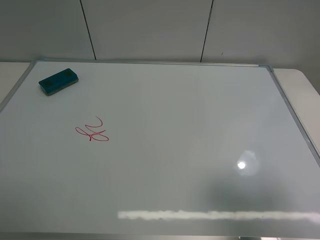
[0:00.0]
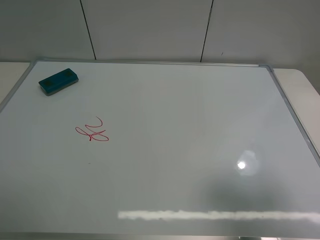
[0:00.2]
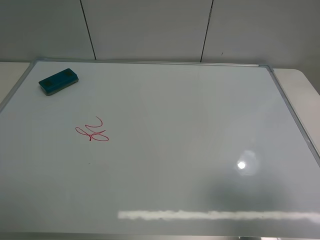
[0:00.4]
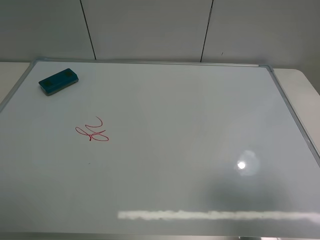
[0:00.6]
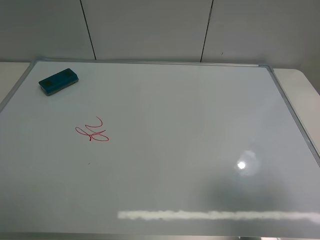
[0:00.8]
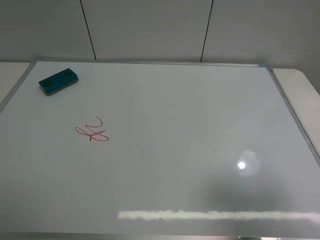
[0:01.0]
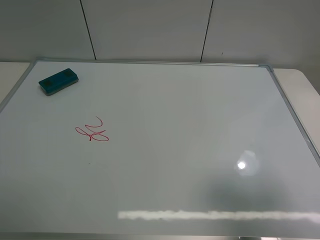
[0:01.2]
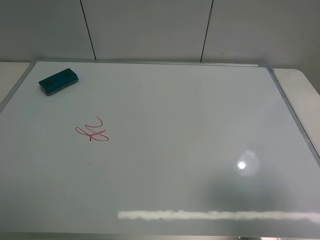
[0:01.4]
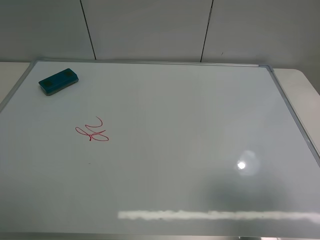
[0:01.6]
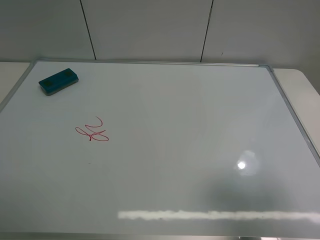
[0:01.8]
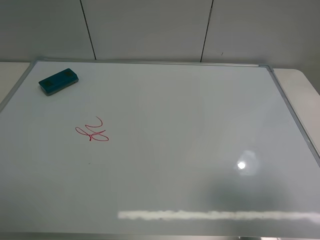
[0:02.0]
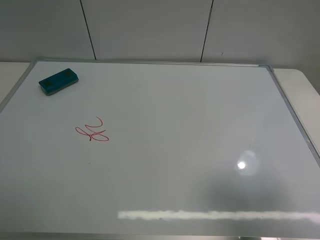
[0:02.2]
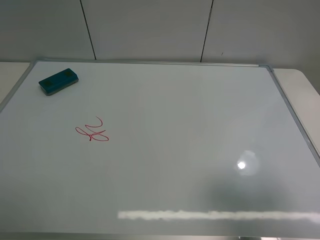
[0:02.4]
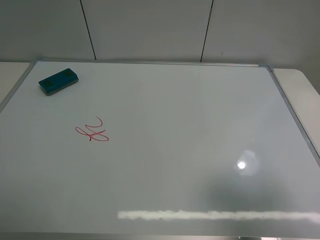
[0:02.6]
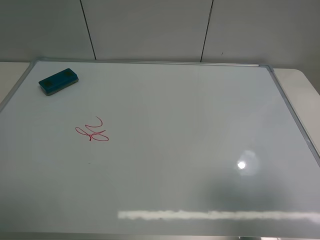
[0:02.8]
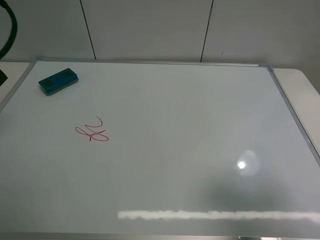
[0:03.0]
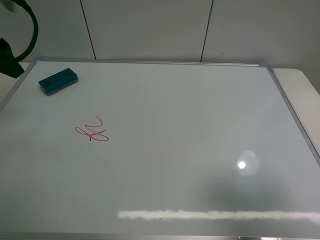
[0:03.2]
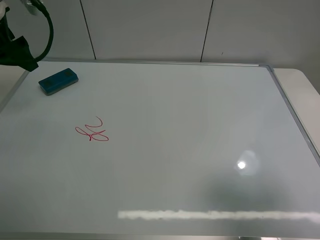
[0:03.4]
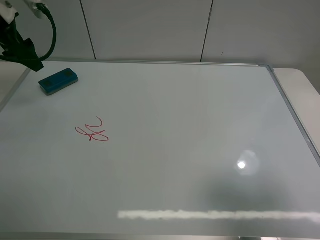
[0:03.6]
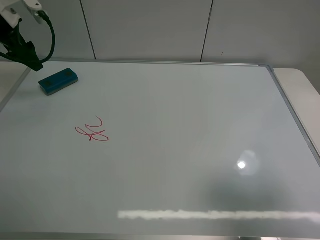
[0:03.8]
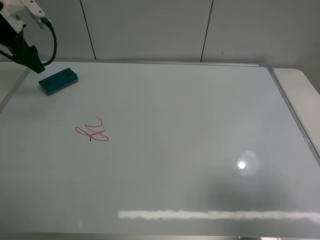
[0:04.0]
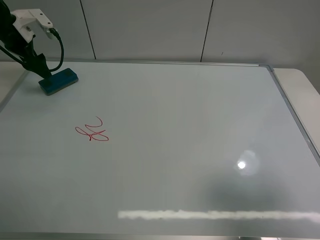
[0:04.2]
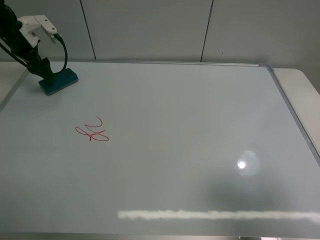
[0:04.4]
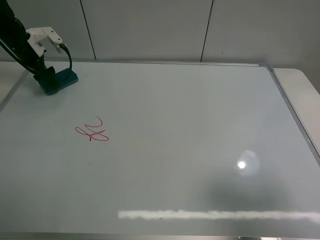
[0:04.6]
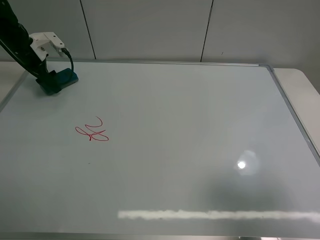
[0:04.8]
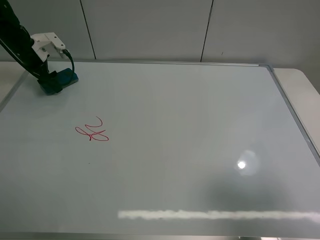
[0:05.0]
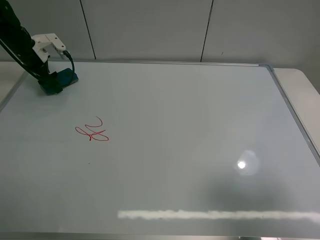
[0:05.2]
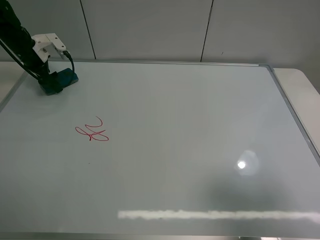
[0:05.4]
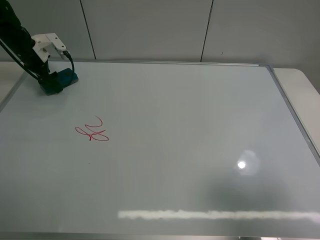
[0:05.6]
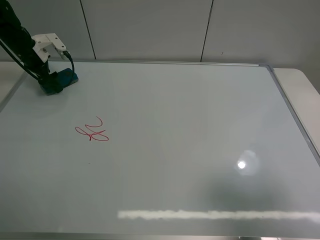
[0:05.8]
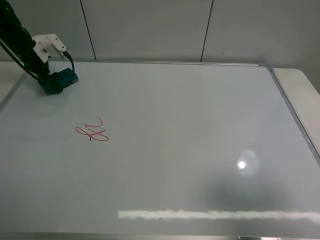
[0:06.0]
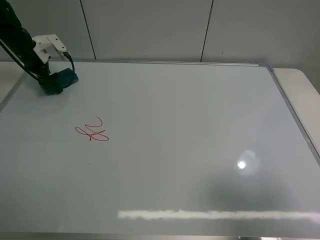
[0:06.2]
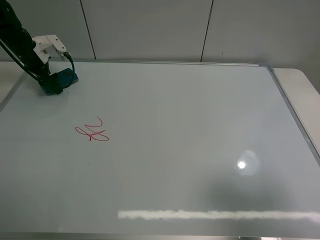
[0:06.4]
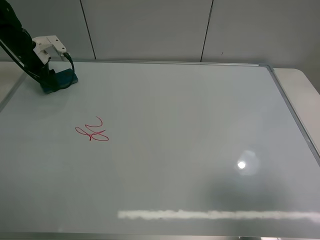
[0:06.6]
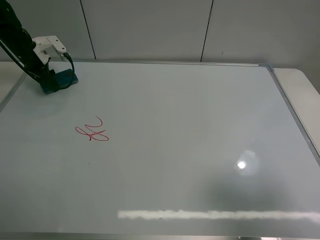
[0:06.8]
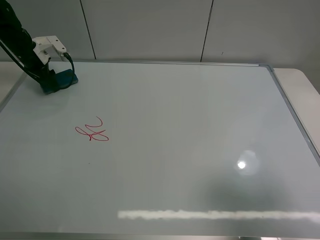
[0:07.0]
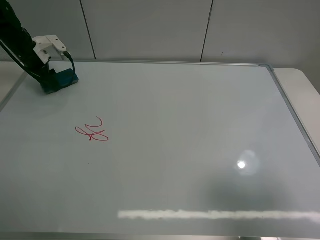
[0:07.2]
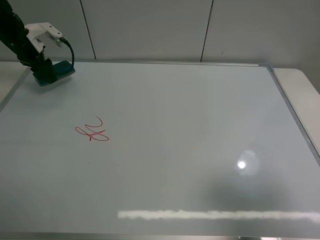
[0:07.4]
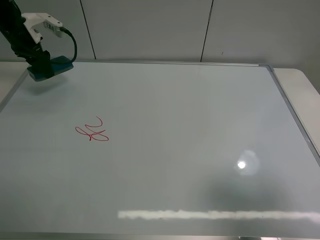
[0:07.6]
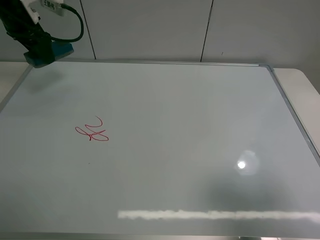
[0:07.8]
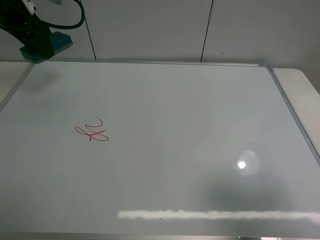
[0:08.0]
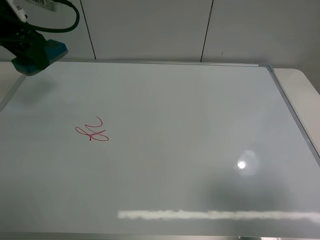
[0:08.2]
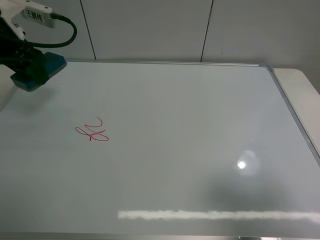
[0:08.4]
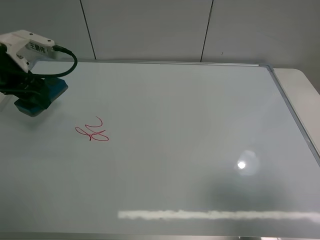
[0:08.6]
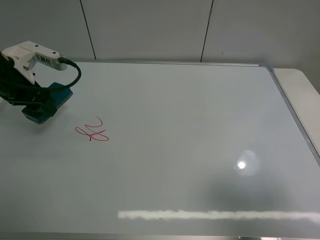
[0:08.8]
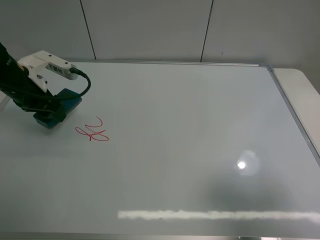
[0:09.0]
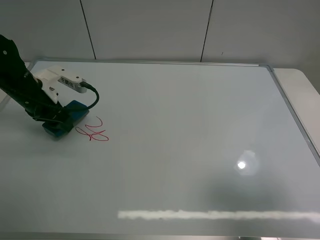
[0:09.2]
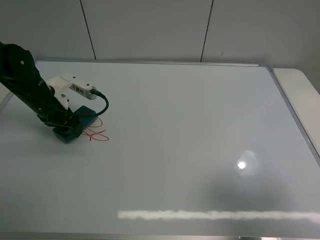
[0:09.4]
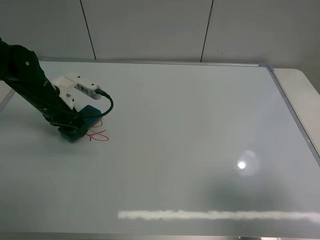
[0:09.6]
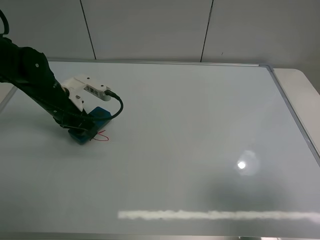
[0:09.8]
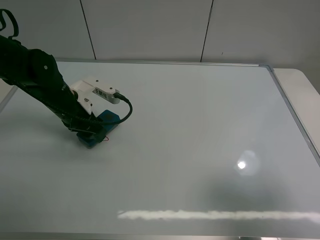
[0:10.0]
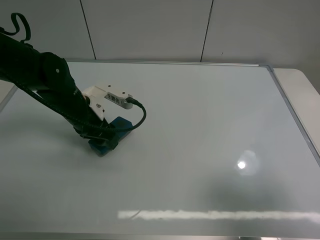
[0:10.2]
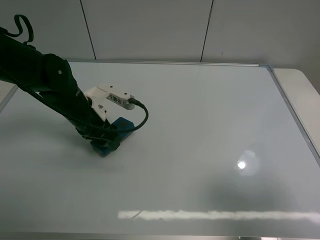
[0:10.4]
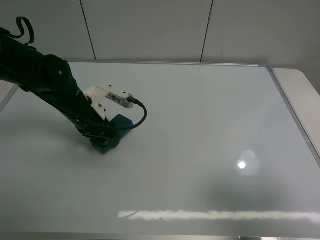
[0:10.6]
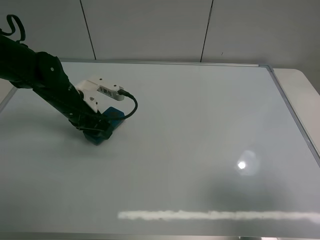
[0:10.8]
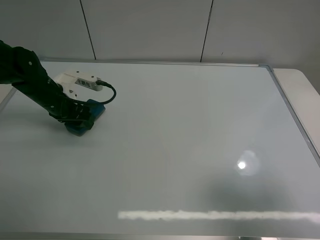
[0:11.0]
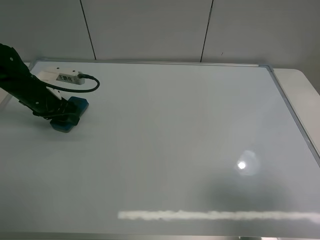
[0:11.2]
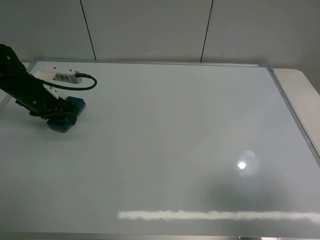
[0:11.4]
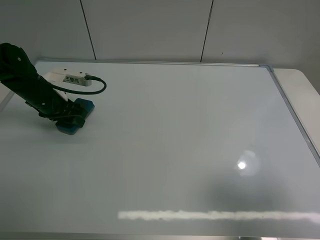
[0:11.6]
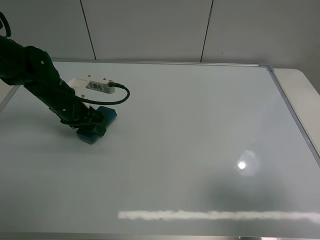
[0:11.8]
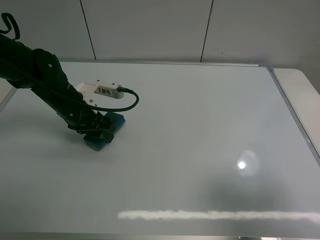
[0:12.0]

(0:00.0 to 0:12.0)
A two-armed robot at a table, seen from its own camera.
Task of the whole recording: use the left claw to pick up the whiteboard eraser, wipe the notes on the whiteboard clean, and then put them back in place.
Step, 0:00.0 - 0:06.6: Grasp the eraser with the left gripper.
Step, 0:06.8 - 0:12.0: Grasp the eraser and wipe the blackboard with the left gripper.
0:00.0 - 0:01.6: Both grippers stay put.
0:01.6 - 0:03.0: The left gripper is displaced forward by approximately 25 cm.
0:03.0 - 0:04.4: The left gripper moves forward and downward, approximately 25 cm.
0:04.4 - 0:06.0: The left gripper travels downward by roughly 5 cm.
0:06.0 - 0:07.6: The left gripper shifts some 10 cm upward, and closes its fingers.
0:07.6 - 0:09.0: The left gripper is displaced backward and to the right by roughly 15 cm.
0:09.0 - 0:10.4: The left gripper shifts some 10 cm to the right and downward.
0:10.4 - 0:12.0: The left gripper goes to the left and returns, roughly 15 cm each way.

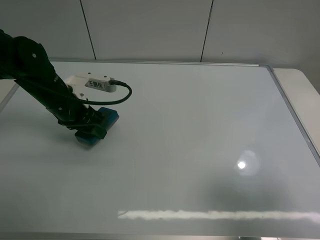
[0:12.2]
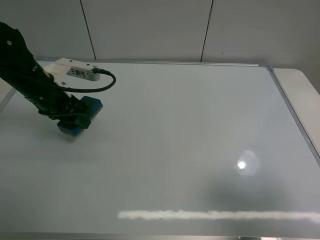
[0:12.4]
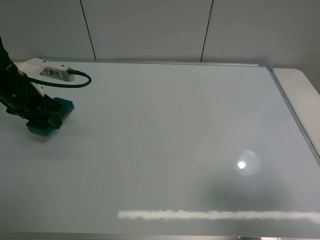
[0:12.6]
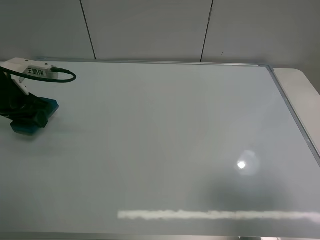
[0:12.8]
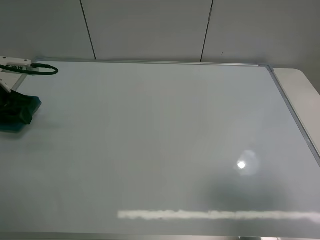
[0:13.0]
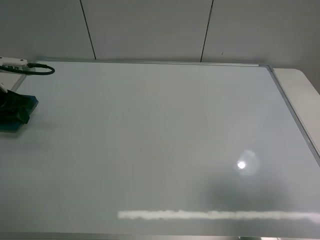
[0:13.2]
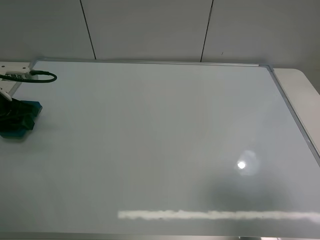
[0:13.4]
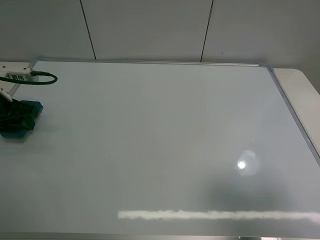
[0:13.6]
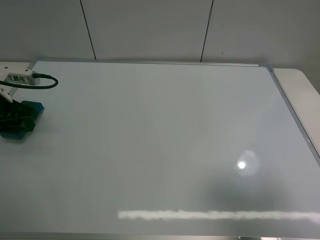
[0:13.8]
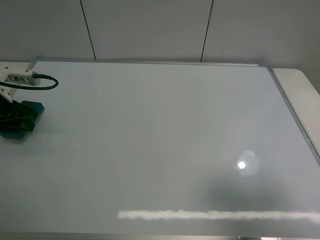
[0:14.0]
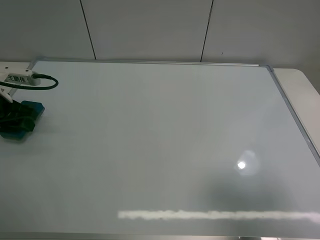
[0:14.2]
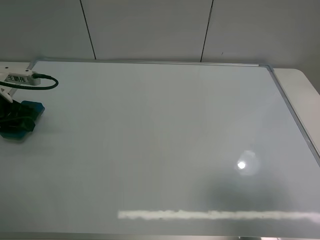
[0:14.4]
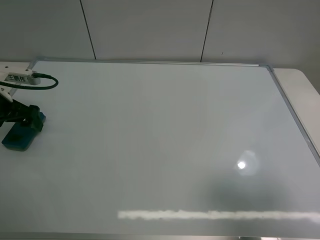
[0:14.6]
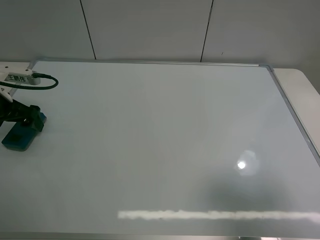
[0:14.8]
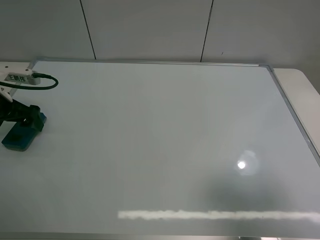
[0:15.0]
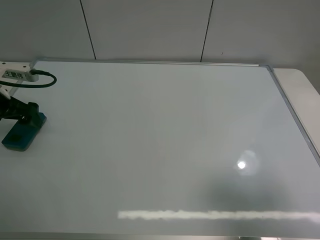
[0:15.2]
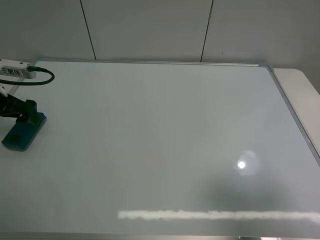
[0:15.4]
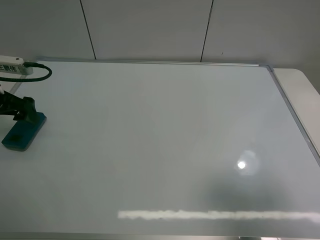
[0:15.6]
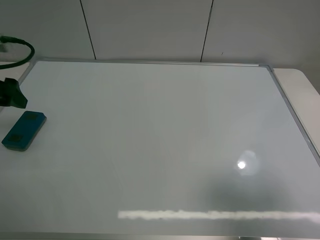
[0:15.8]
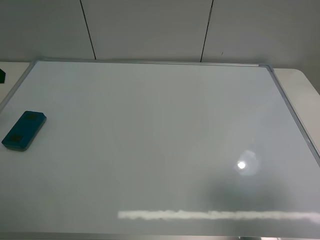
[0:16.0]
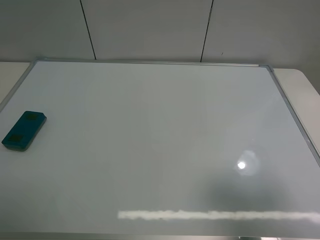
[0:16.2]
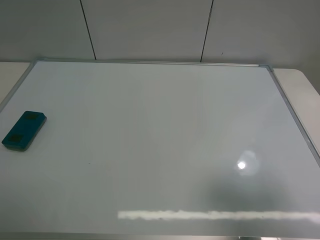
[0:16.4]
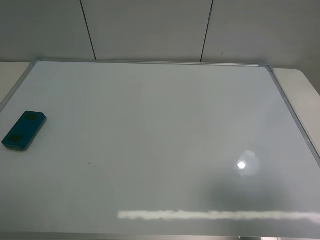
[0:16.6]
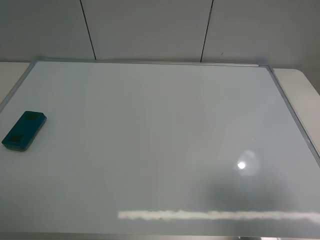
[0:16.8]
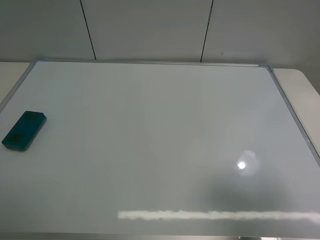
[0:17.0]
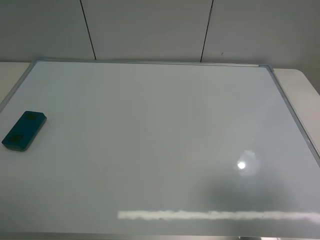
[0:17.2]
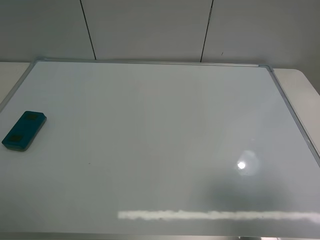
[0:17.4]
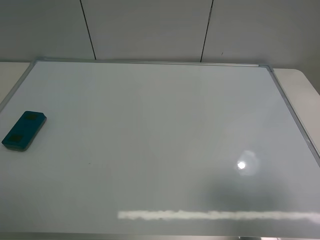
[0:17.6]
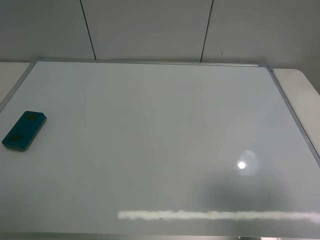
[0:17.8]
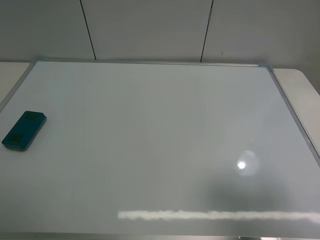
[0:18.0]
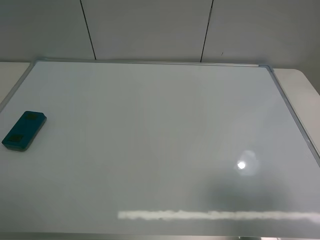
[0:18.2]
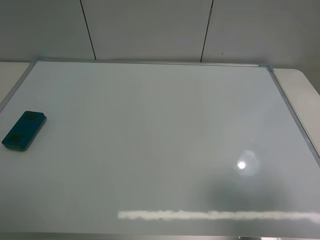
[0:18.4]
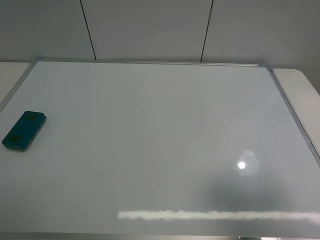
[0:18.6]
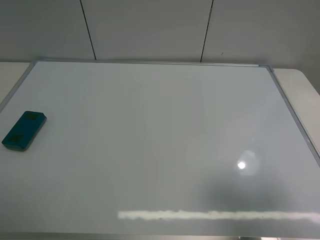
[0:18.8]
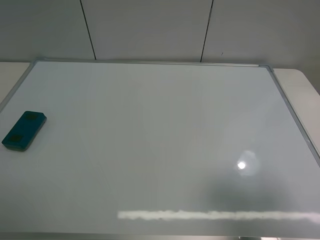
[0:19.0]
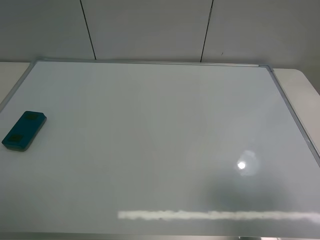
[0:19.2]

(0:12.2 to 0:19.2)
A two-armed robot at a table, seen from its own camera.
Task of the whole recording: use the left claw to pick up the whiteboard eraser, wipe the notes on the whiteboard clean, and then put them back in place.
Step, 0:12.2 - 0:14.6: Place the eraser with the left gripper.
0:12.2 - 0:13.6: The left gripper is displaced to the left by about 15 cm.
0:13.6 - 0:15.0: The left gripper opens its fingers.
0:15.0 - 0:16.4: The left gripper is displaced upward and backward by about 30 cm.
0:17.8 - 0:19.2: Both grippers stay put.

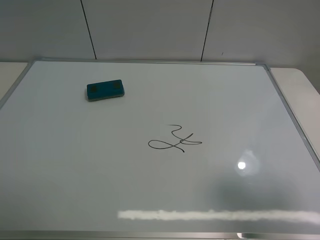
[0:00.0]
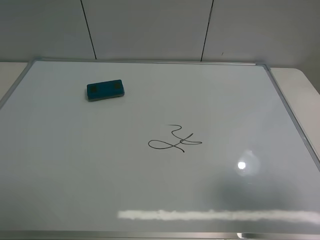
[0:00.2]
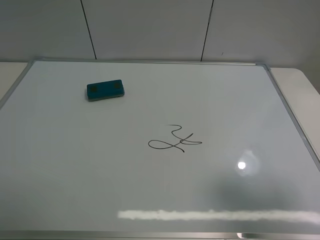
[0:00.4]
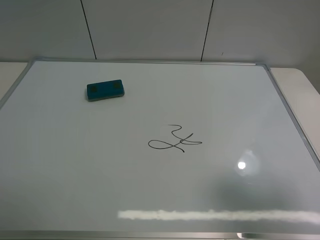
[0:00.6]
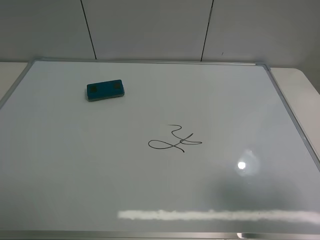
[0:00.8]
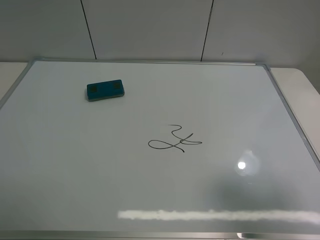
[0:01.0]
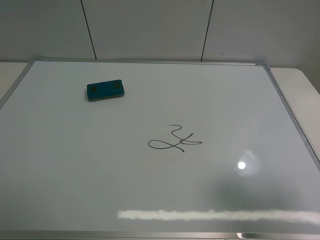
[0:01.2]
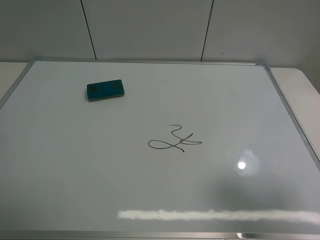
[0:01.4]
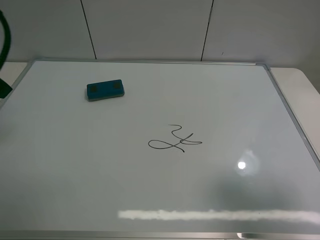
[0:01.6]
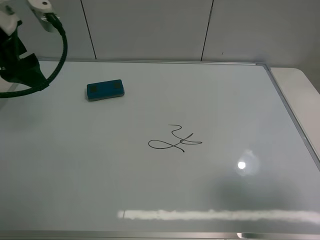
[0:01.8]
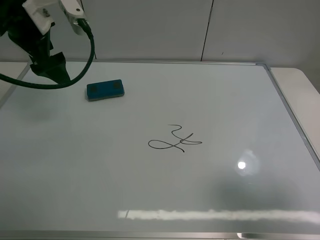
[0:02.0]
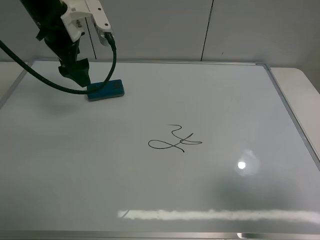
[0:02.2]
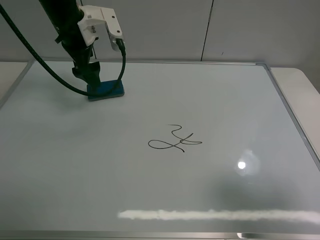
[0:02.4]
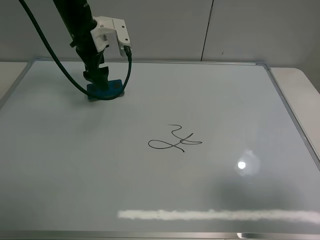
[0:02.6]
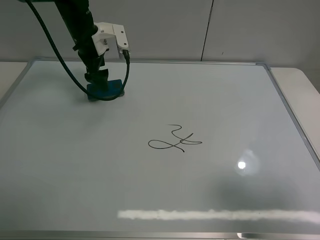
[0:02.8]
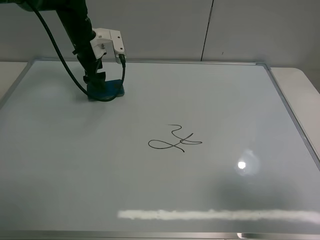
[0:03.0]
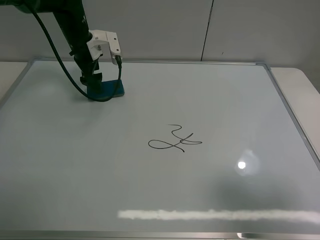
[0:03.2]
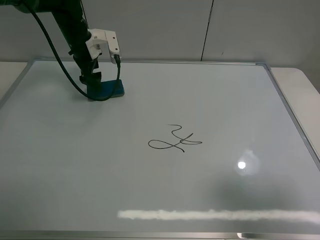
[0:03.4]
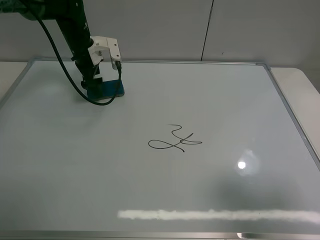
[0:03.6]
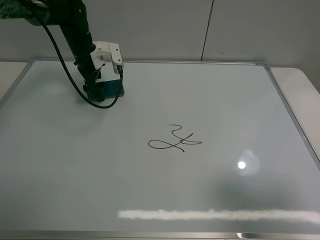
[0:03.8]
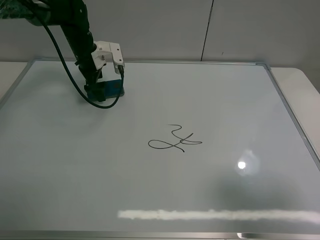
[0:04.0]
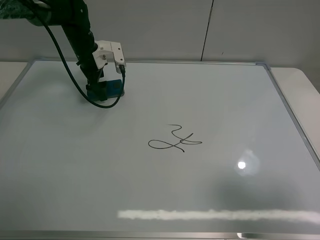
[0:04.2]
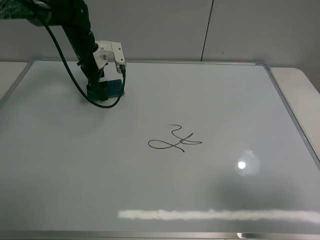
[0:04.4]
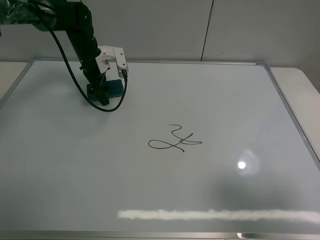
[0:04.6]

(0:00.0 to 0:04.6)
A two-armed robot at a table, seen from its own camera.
Task of the whole recording: use the left claw to pick up the whiteboard eraser, wipe the notes on the whiteboard clean, and then put them back in place.
0:00.0 - 0:01.6: The left gripper is displaced forward by roughly 20 cm.
0:01.6 - 0:03.0: The left gripper shifts some 30 cm forward and downward.
0:03.0 - 0:04.6: There are only small adjustments of the grippers.
